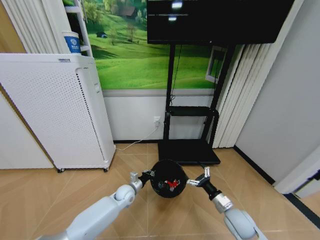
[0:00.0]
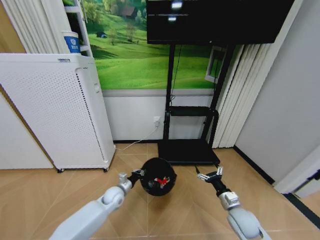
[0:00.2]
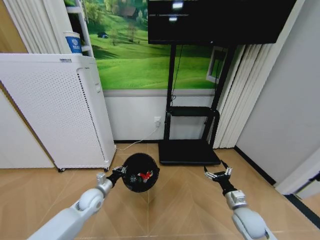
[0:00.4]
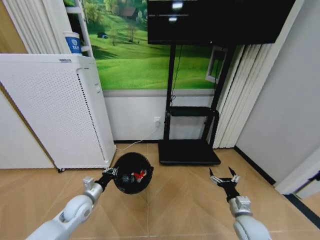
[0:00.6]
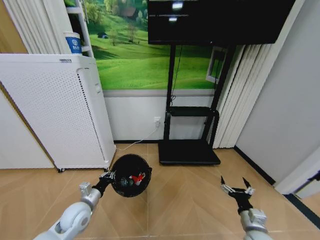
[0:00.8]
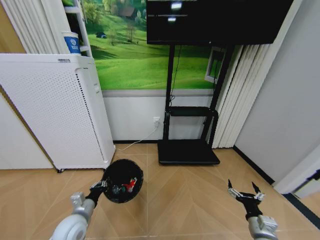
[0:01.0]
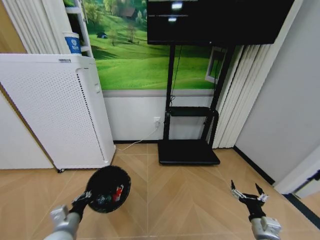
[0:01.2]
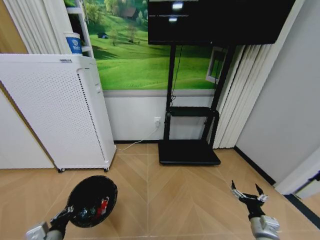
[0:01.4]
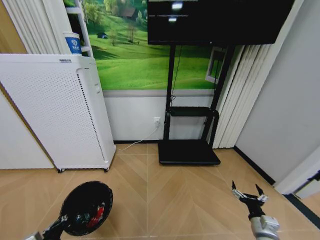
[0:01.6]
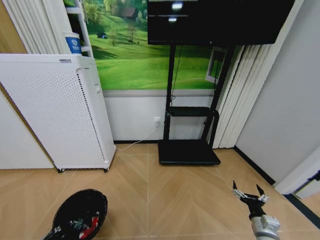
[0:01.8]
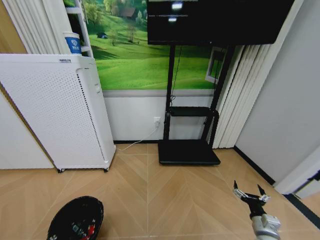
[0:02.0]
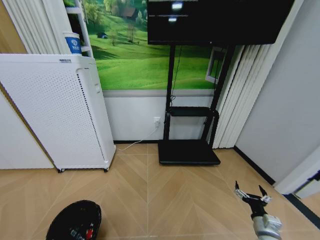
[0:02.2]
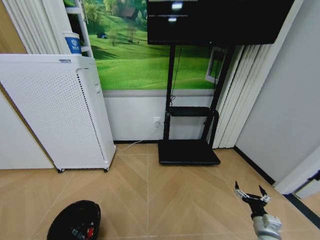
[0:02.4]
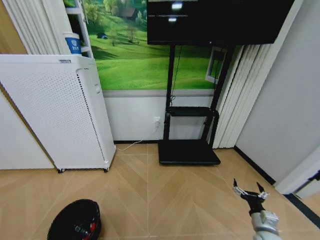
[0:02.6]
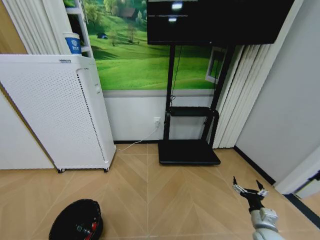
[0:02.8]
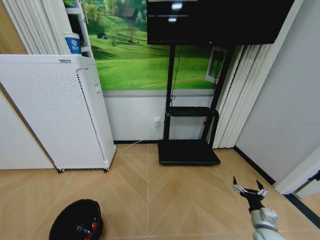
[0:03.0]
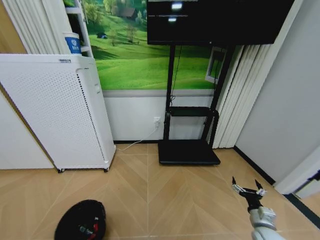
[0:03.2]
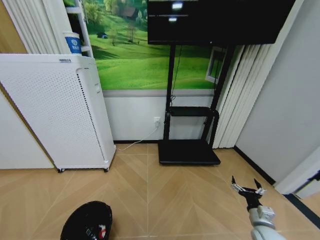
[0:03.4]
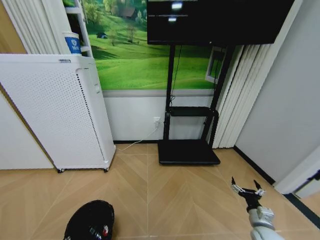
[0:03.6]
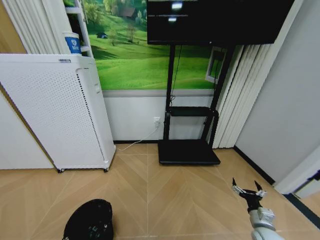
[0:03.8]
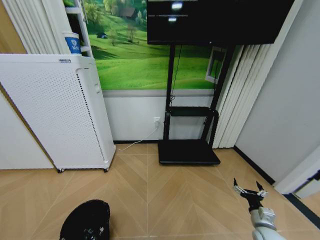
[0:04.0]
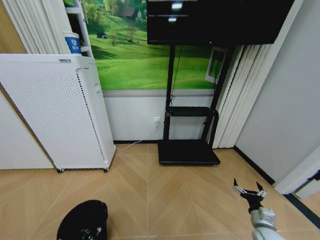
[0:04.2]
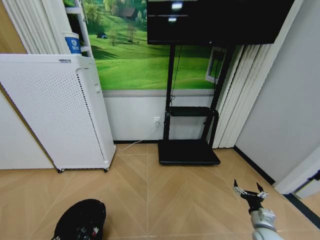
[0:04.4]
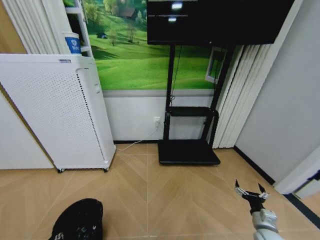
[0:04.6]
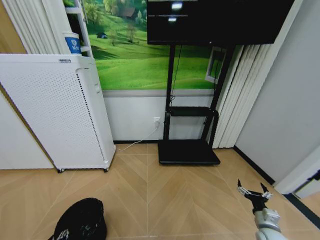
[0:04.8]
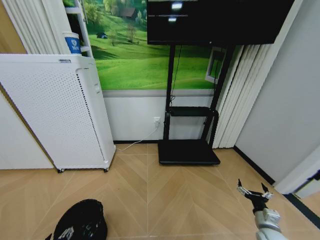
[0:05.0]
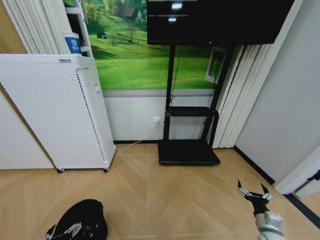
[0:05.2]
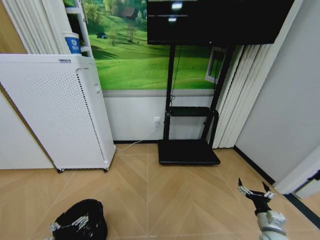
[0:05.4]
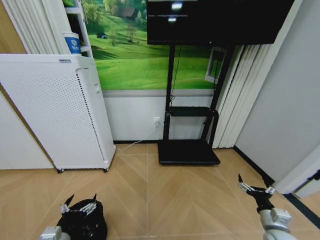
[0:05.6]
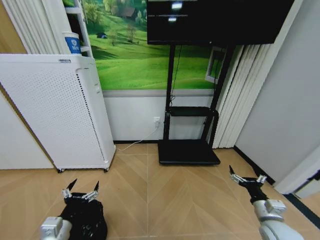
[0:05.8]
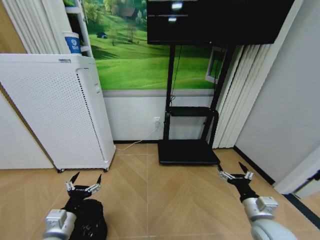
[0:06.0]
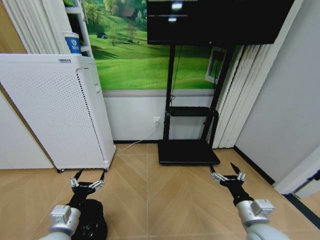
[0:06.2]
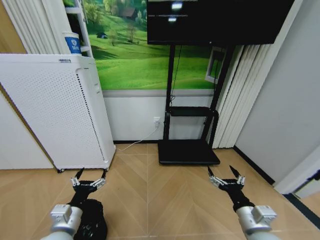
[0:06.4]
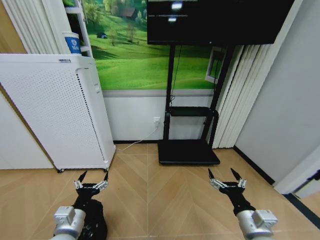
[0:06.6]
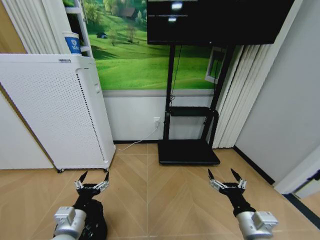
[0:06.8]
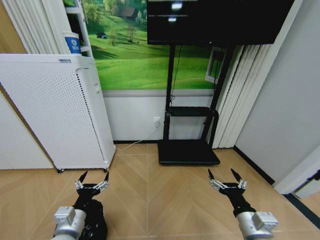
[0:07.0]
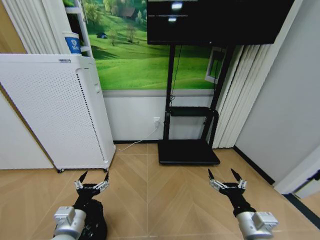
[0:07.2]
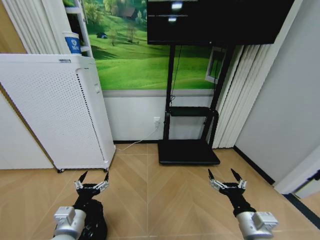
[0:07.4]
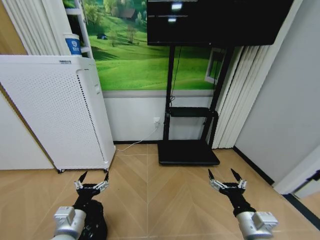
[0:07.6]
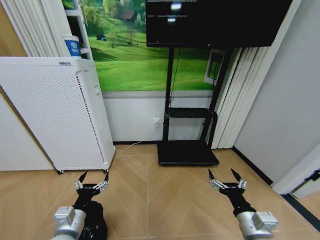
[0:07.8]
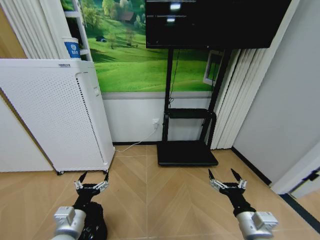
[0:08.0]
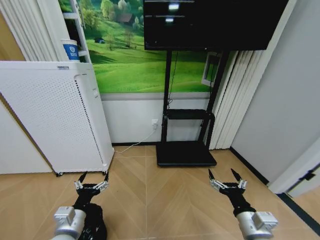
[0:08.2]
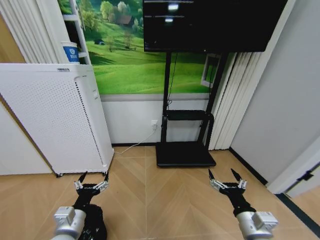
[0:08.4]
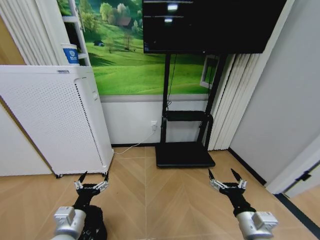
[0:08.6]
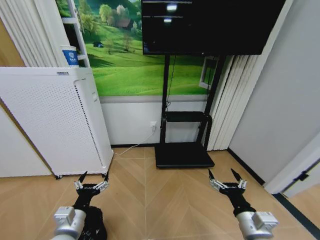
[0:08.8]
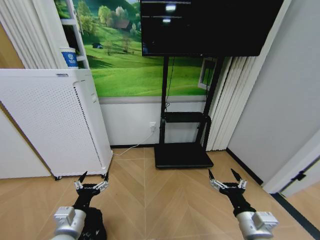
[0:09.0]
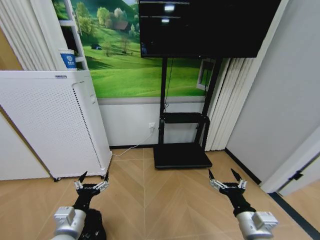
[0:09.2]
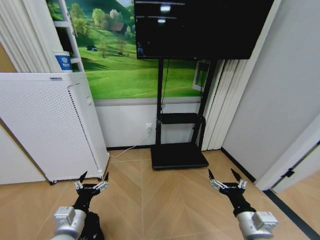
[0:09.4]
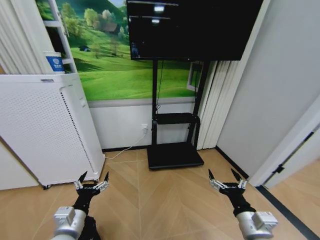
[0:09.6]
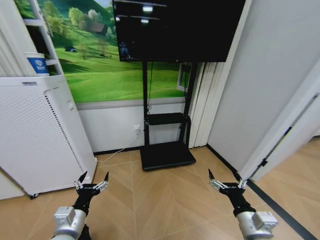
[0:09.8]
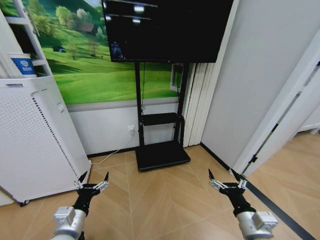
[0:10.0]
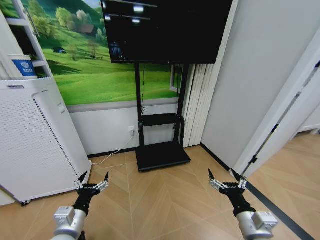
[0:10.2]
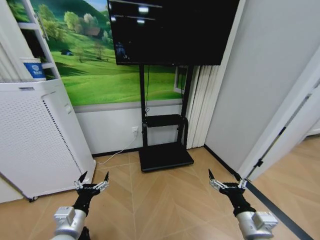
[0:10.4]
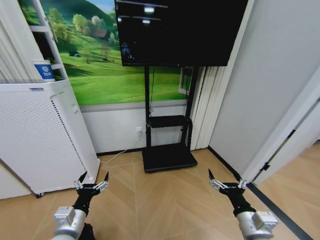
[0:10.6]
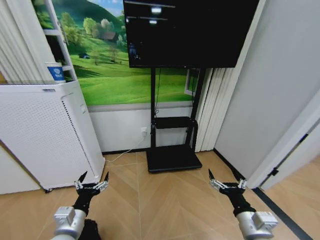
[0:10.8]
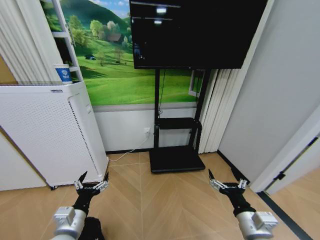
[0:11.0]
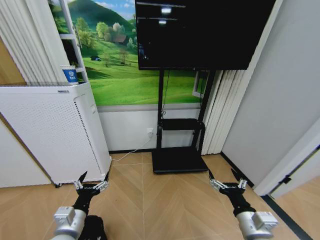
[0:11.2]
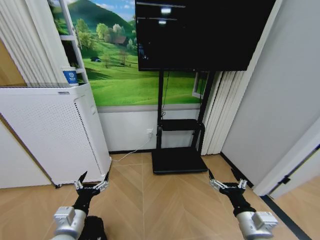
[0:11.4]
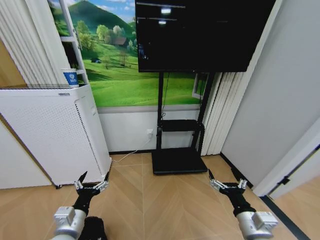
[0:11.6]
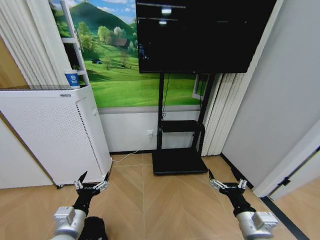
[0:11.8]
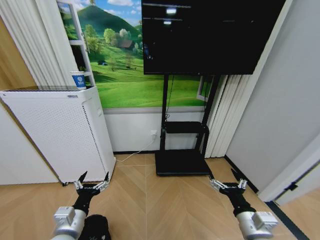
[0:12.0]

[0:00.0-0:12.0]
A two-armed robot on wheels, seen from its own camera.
Task of the whole recording: Pick up the trash bin and place the garbage on the floor into it.
0:00.0 to 0:01.6: The right gripper goes about 10 cm backward and to the right. Meanwhile the left gripper travels backward and to the left by about 35 cm.
0:01.6 to 0:03.0: The left gripper heads downward, covering about 10 cm.
0:03.0 to 0:04.4: The left gripper goes about 5 cm upward.
0:04.4 to 0:06.0: The left gripper travels upward and forward by roughly 10 cm, and opens its fingers. Meanwhile the right gripper travels upward and to the left by some 15 cm.
0:06.0 to 0:07.6: The right gripper goes approximately 10 cm to the left and backward.

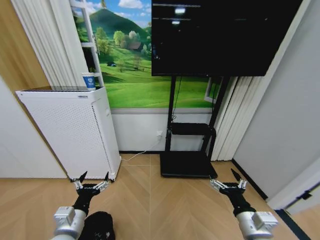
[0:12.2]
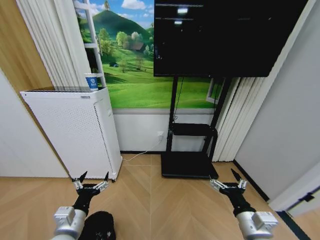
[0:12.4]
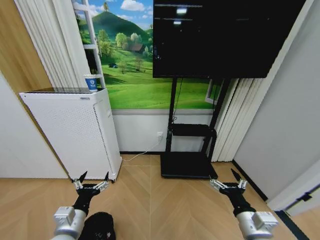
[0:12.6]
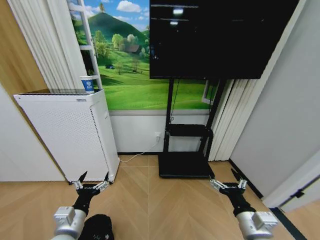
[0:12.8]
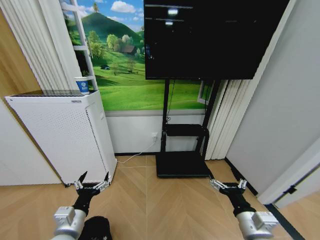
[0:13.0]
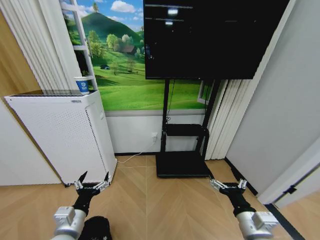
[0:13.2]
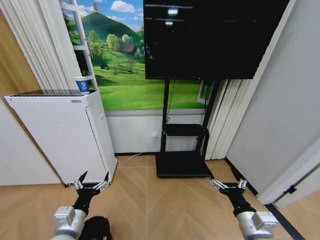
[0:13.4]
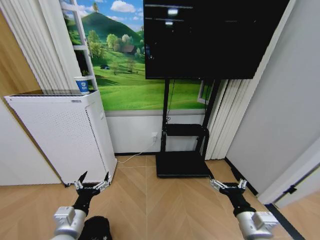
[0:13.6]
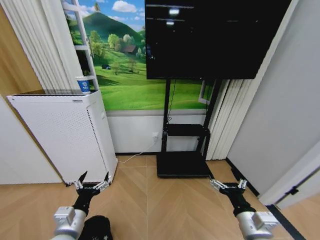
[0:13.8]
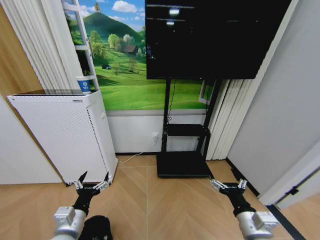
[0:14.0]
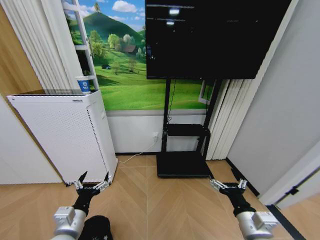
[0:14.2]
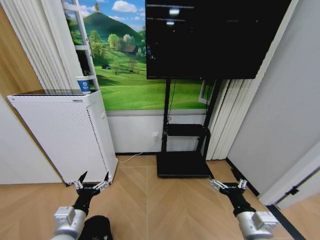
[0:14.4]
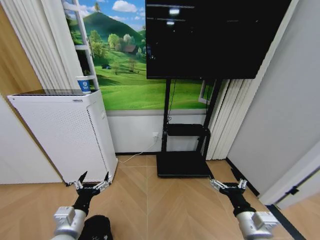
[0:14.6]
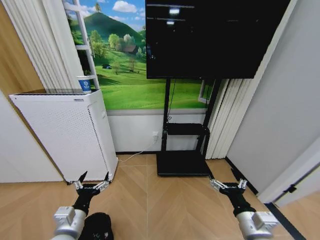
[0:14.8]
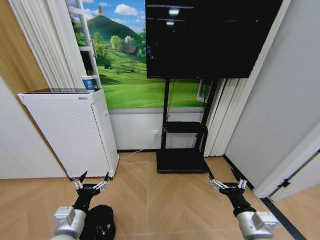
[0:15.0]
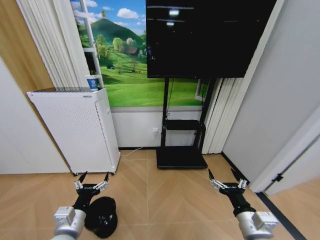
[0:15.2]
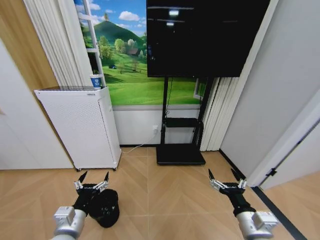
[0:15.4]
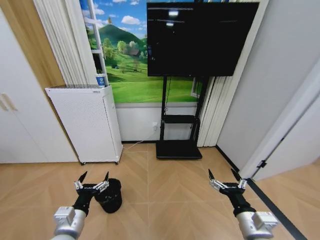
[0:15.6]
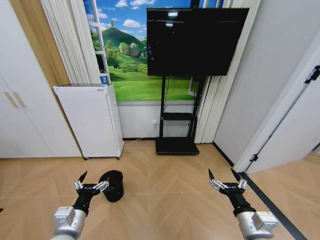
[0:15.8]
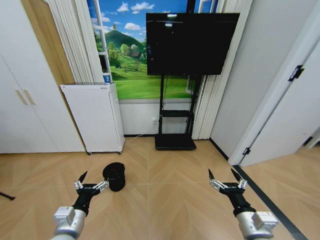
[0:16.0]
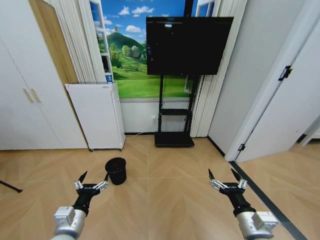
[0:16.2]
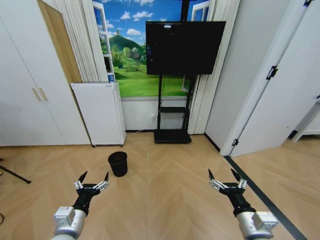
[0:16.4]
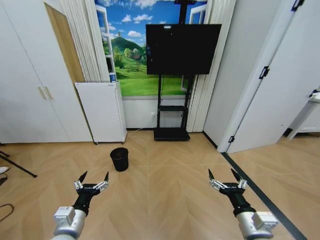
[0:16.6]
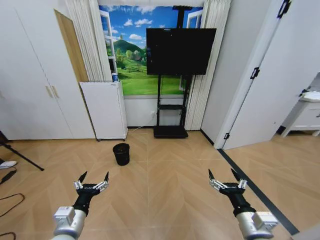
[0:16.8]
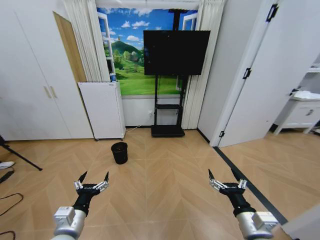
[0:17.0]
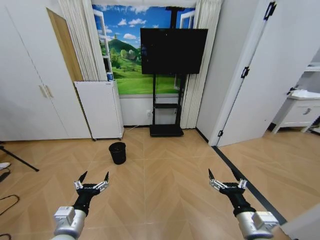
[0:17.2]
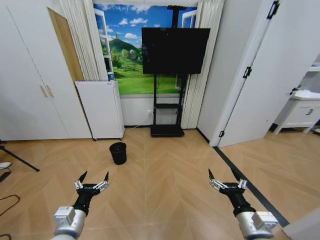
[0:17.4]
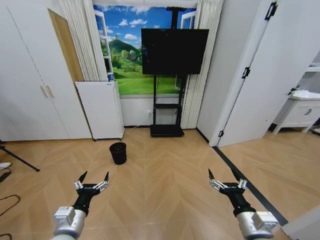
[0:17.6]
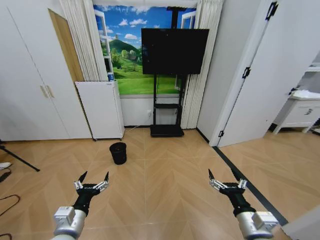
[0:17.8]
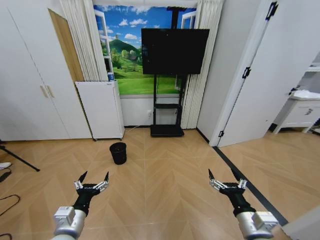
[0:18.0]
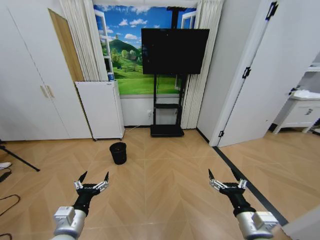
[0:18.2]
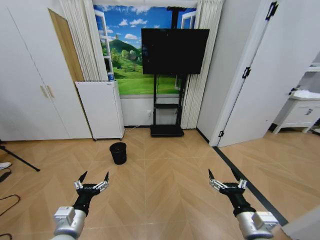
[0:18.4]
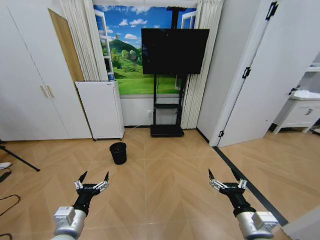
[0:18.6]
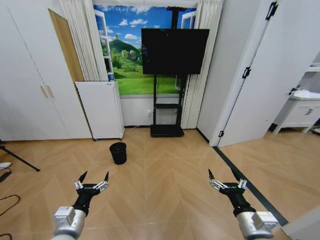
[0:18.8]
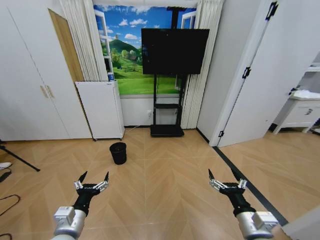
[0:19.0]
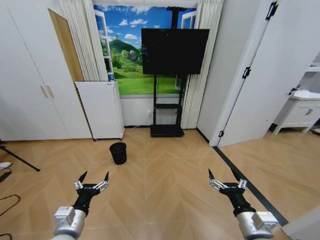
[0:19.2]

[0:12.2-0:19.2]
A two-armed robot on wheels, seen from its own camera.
Task of the whole recording: Pick up the trash bin and place the garbage on the floor into it.
0:13.6 to 0:15.0: Both grippers stay put.
0:17.8 to 0:19.2: Both grippers stay put.
